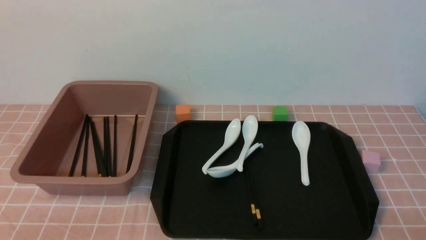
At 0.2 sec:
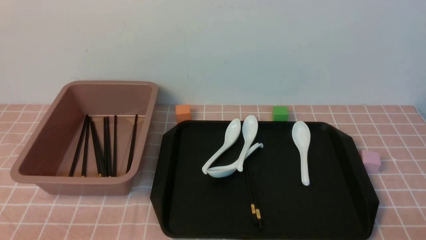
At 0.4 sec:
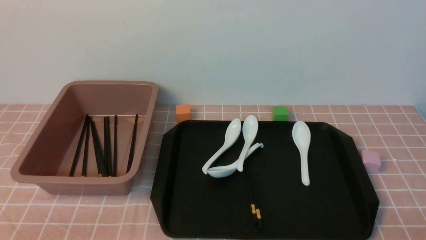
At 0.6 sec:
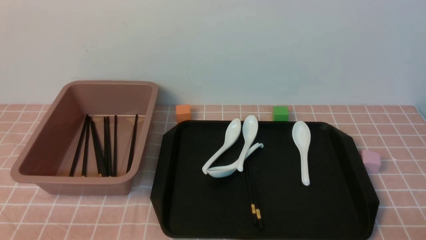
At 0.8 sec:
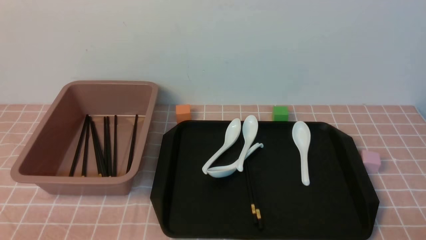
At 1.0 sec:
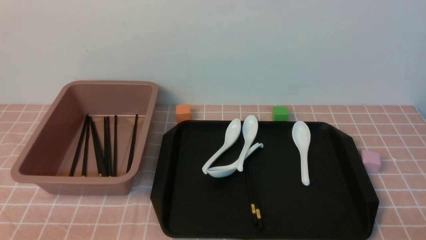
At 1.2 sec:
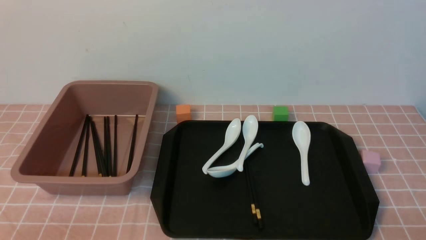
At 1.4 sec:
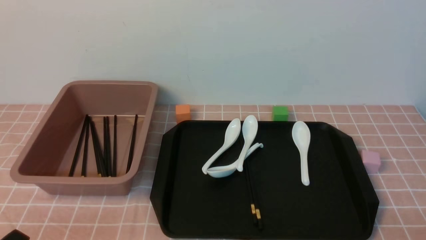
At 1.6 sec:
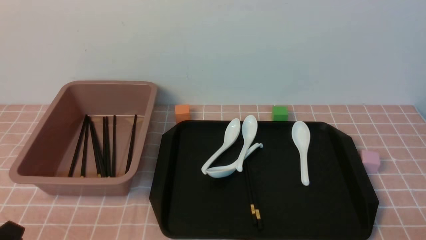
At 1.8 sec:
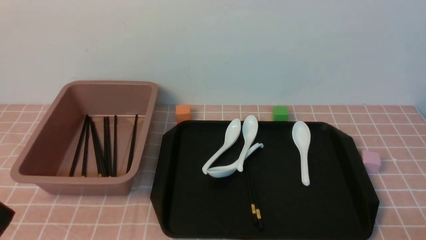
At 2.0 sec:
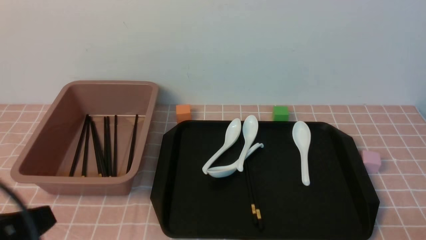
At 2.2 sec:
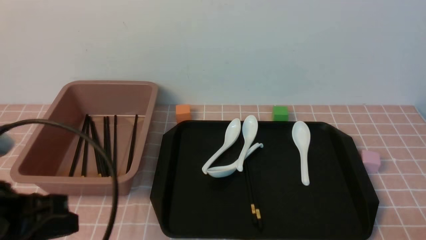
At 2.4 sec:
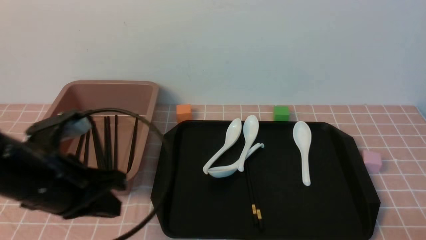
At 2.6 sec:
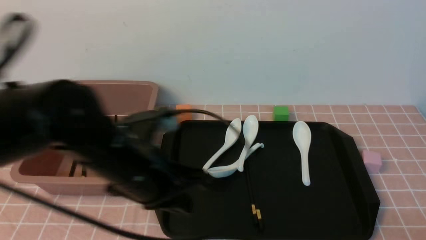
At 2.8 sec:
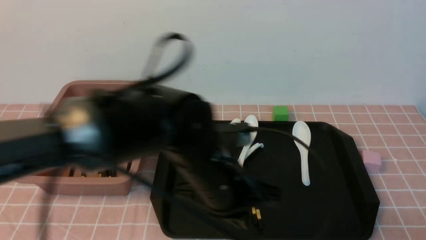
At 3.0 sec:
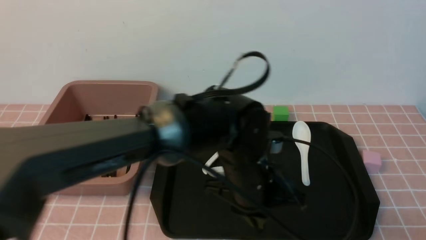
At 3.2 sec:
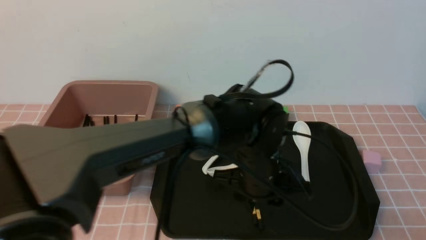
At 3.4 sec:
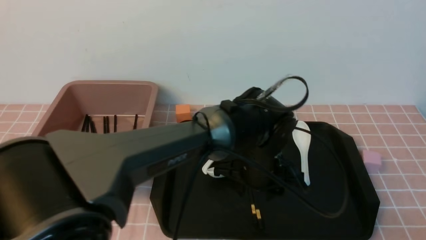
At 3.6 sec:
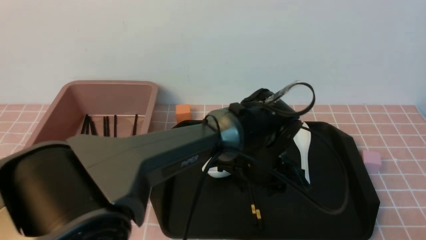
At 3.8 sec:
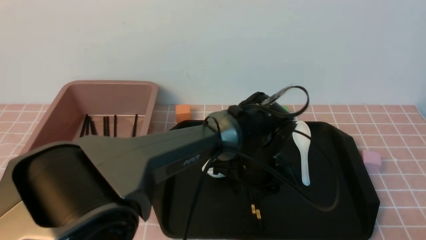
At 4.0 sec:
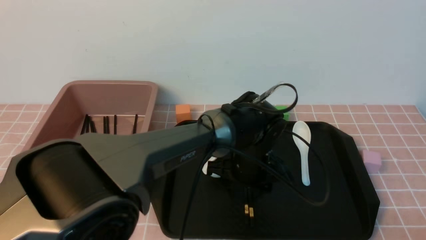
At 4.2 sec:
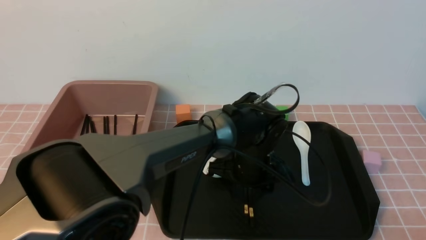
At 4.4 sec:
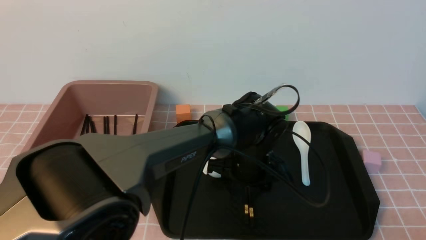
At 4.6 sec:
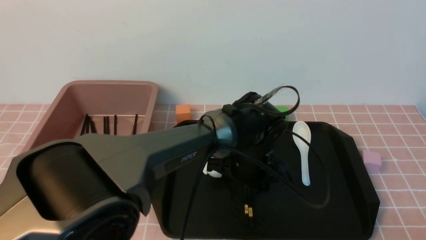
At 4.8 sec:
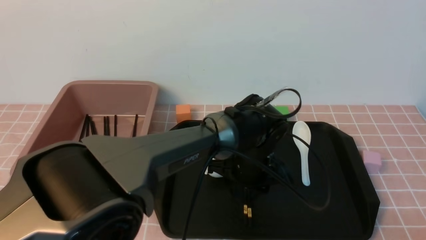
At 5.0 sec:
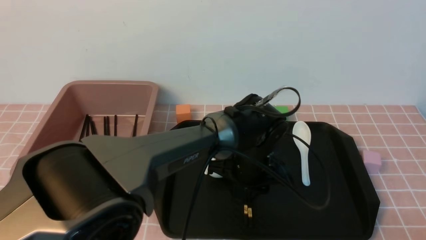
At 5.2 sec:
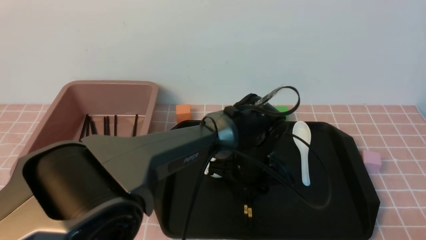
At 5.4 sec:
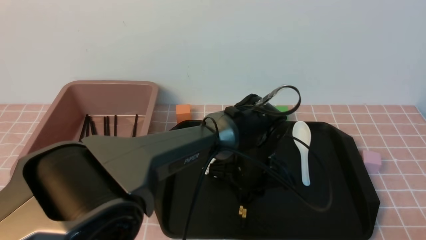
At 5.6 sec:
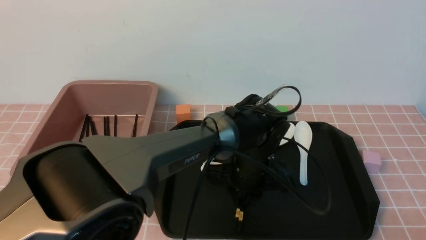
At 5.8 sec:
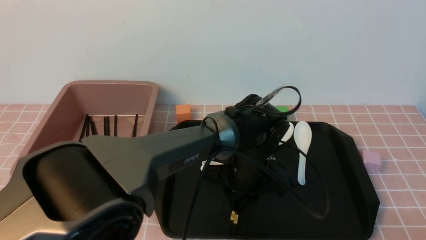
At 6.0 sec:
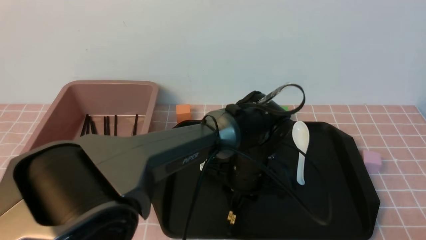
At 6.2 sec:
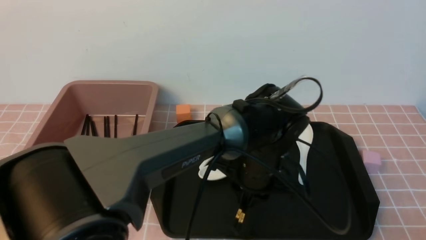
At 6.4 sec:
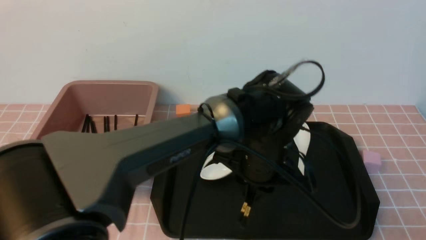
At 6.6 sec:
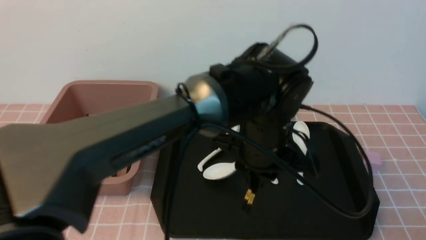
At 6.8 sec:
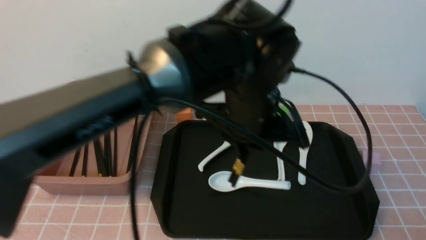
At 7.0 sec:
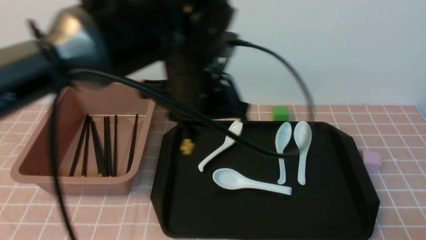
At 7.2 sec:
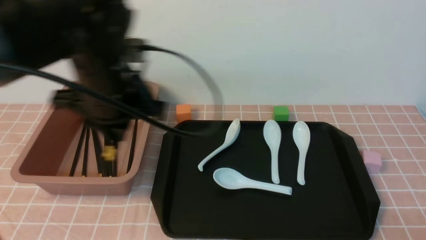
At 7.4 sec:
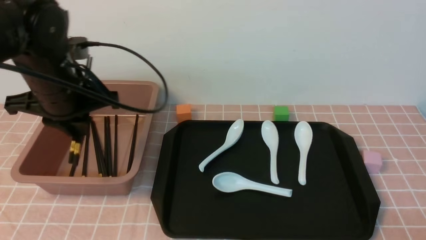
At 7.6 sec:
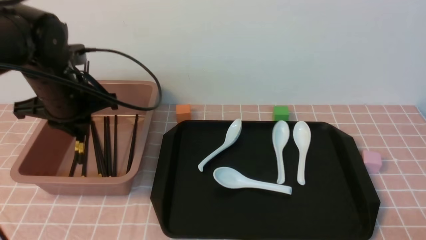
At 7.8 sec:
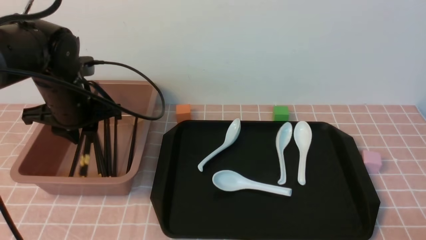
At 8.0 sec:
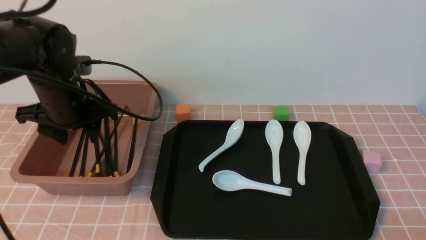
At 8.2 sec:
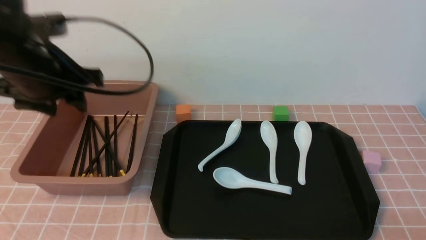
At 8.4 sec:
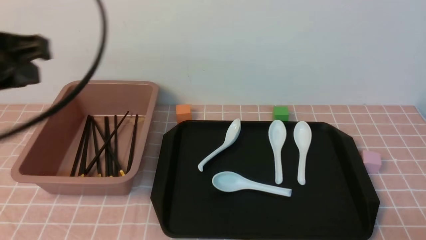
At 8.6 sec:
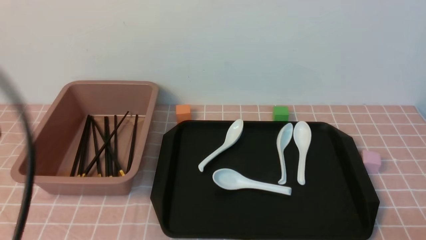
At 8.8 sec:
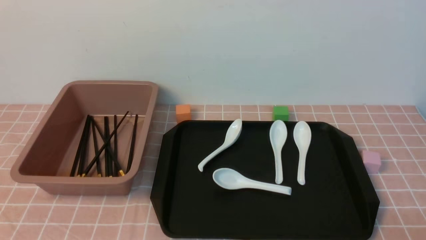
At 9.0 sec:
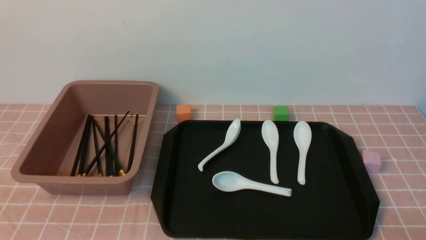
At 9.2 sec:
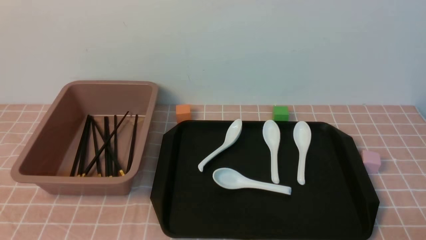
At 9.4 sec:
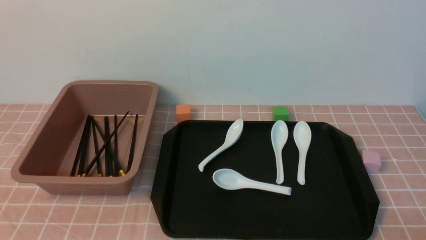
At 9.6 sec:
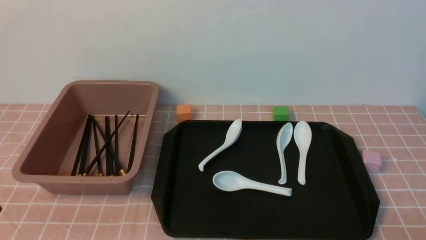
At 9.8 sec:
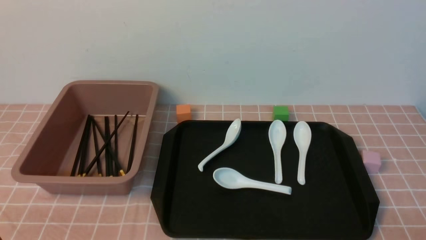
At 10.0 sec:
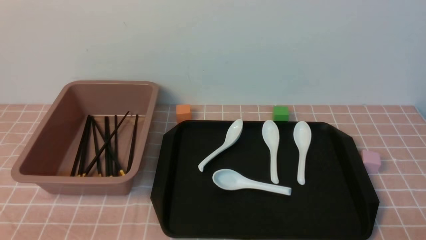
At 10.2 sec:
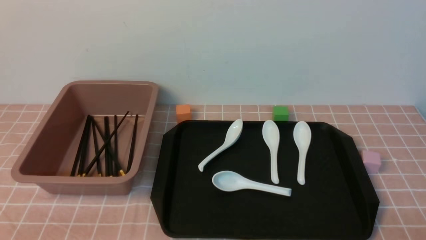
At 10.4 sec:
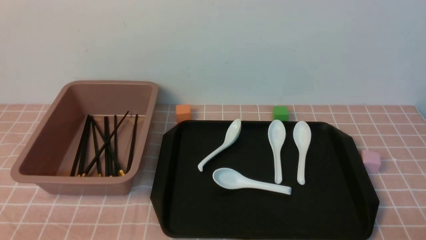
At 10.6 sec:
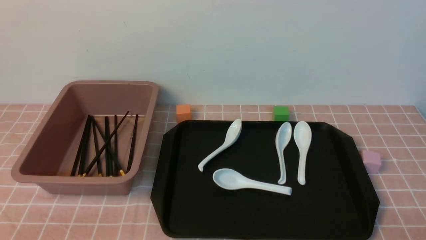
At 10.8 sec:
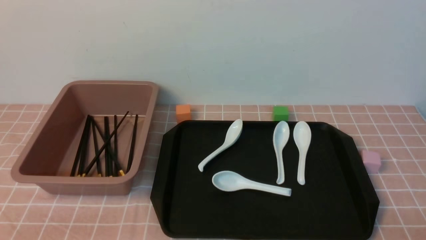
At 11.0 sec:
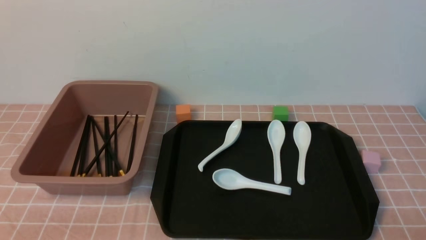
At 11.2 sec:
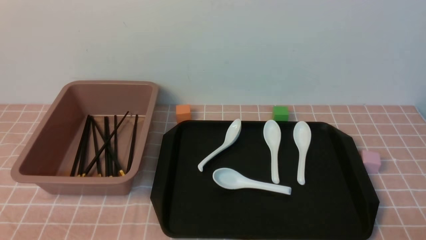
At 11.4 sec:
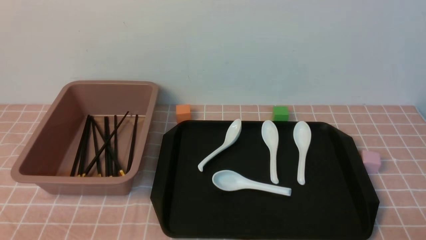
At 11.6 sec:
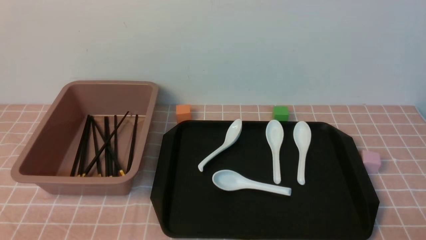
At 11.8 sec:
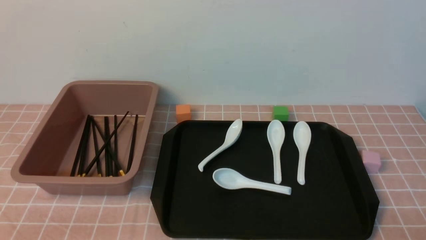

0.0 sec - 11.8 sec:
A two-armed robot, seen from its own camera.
Step, 0.0 sec - 6.2 sec: use the left arm to grab a pair of chopsticks.
Step, 6.6 sec - 8.0 sec: use the left arm to put the chopsticks into the lunch box.
1.4 sec - 3.0 sec: The left gripper heads to the right and forward, covering roughly 35 cm. The right gripper opens its fingers.
3.0 sec - 4.4 sec: The left gripper moves forward and downward, about 10 cm, and opens.
4.4 sec - 6.0 sec: The left gripper closes its fingers.
6.0 sec - 7.4 sec: The left gripper is displaced to the left and upward by roughly 30 cm.
7.4 sec - 8.8 sec: The left gripper is displaced backward by roughly 25 cm, and opens and closes again.
10.4 sec - 11.8 sec: Neither gripper changes place.
